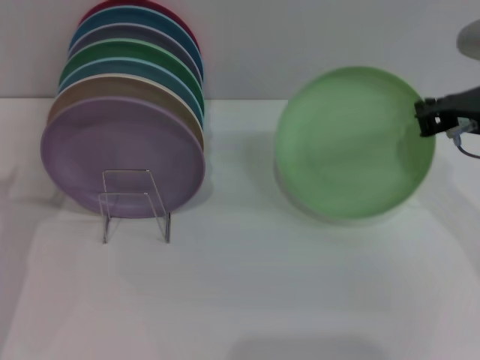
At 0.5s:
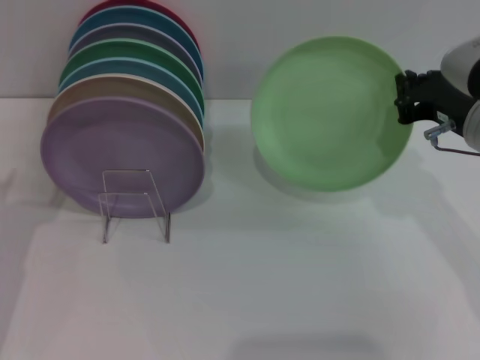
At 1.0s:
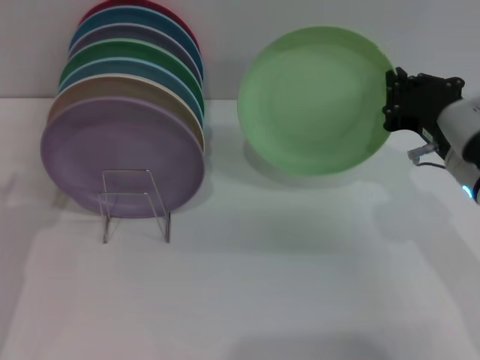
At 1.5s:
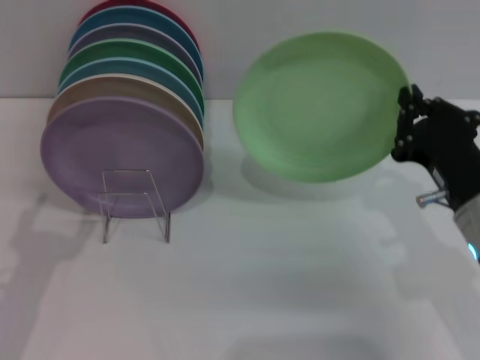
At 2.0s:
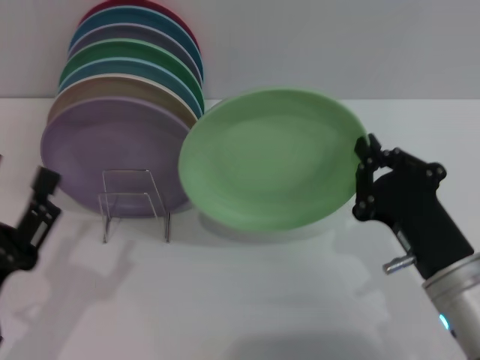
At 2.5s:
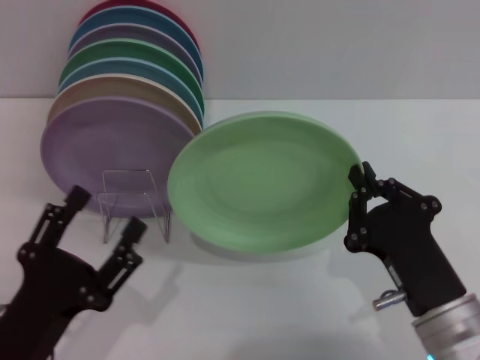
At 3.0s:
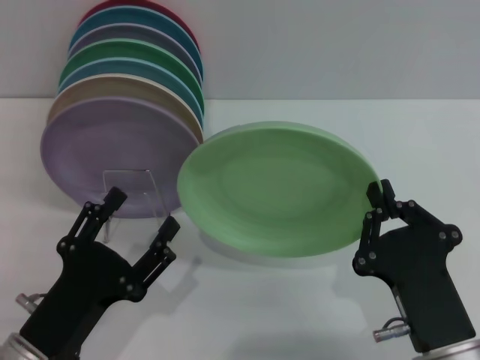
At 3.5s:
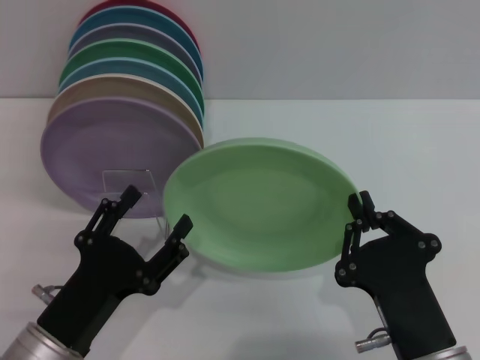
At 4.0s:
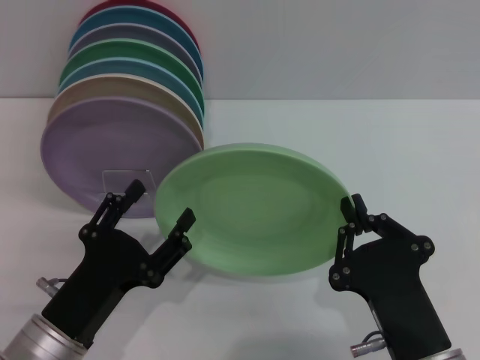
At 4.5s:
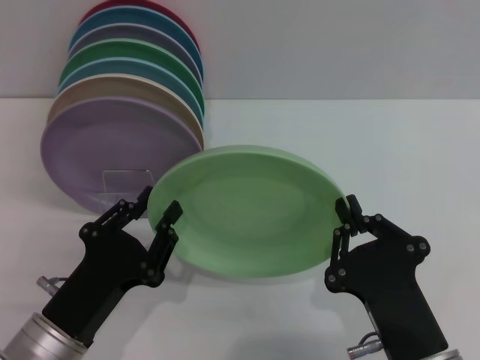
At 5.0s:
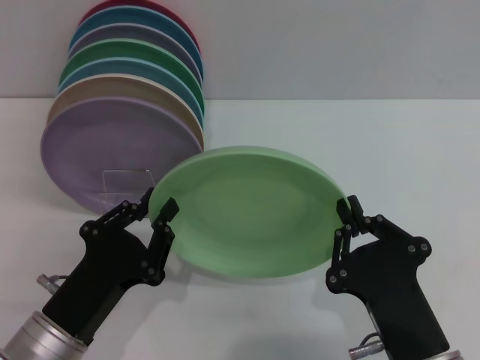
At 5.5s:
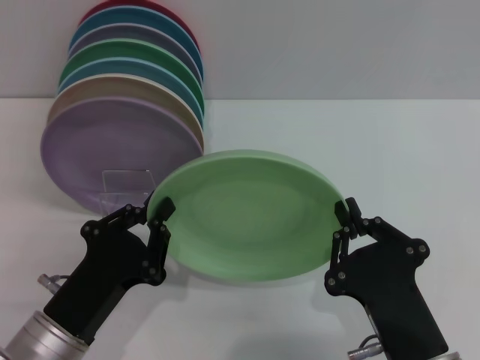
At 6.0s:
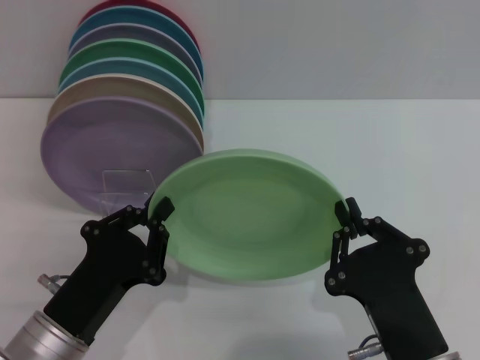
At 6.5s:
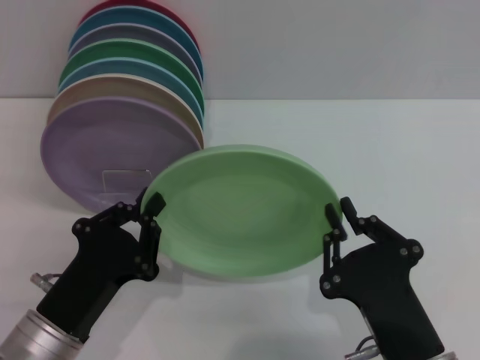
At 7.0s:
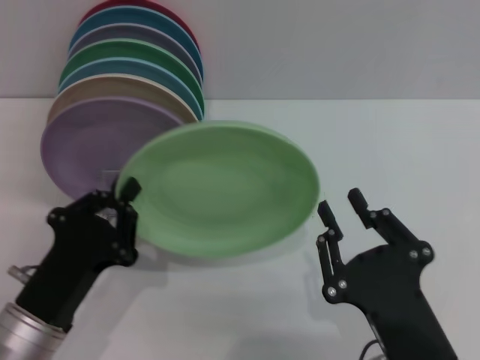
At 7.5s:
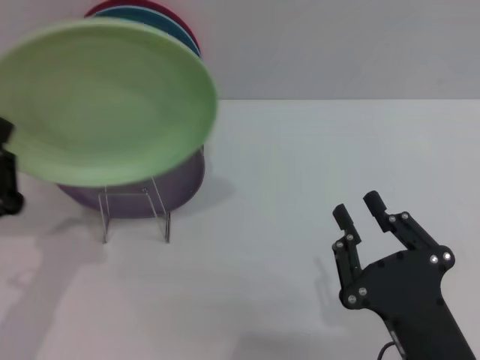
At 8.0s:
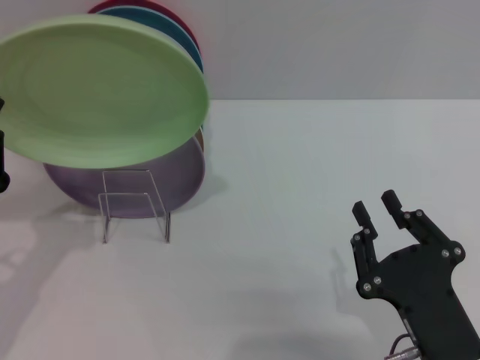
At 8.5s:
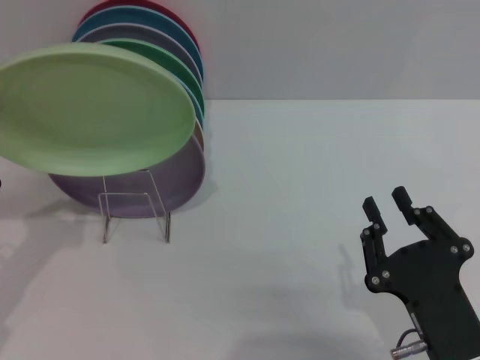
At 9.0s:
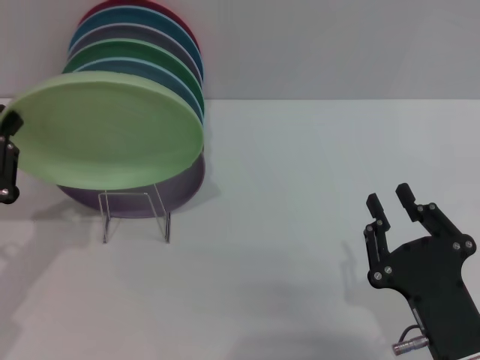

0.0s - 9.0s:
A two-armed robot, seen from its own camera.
Task of the whole recording: Grip the plate with one hand, pass it to the other, then set it on the shelf.
Step, 1.0s - 7.0s: Pass the plate from the right gripper to the left gripper.
0.0s - 2.0s: The right gripper shifts approximately 20 cm backward, downward and to the left. The left gripper moves backward, approximately 10 cm.
2.0s - 4.5s: The right gripper goes some 10 cm backward and to the left. The left gripper heads to the right, covering about 5 cm, and closes.
4.5s - 7.0s: The left gripper closes. Meanwhile the right gripper opens.
7.0s - 9.0s: The left gripper goes about 10 cm to the left.

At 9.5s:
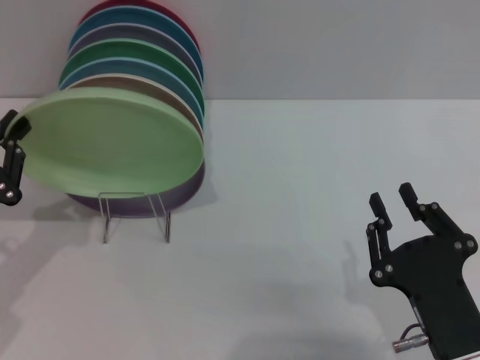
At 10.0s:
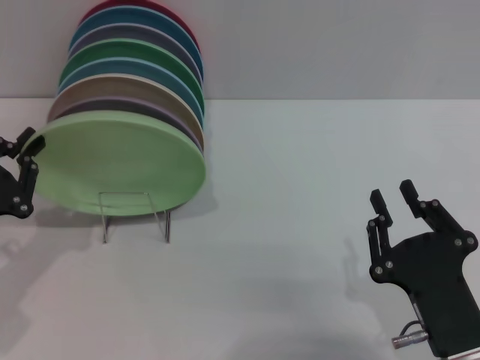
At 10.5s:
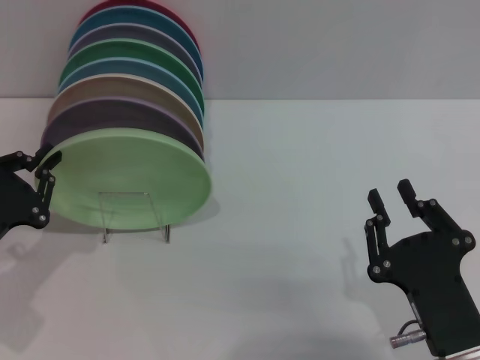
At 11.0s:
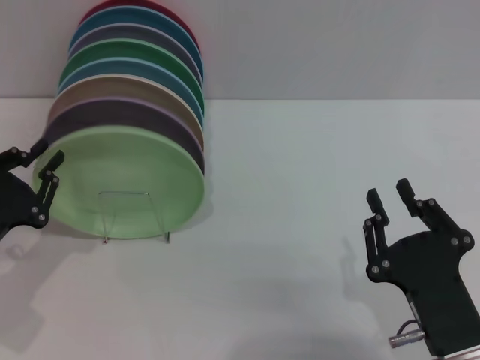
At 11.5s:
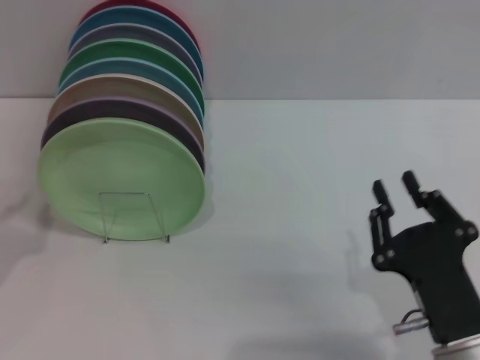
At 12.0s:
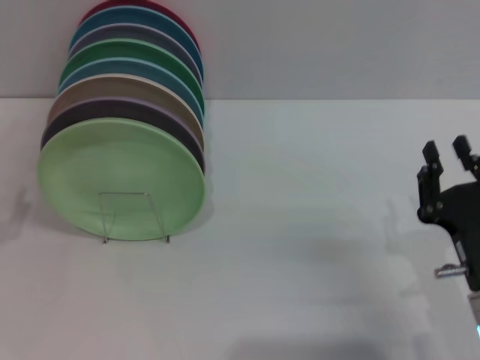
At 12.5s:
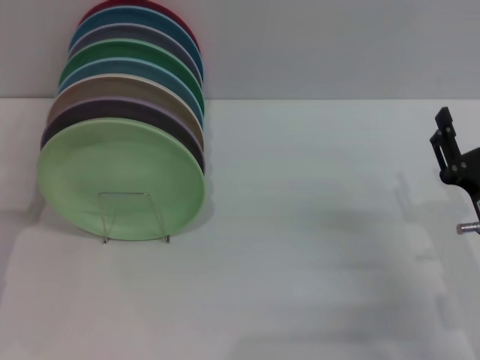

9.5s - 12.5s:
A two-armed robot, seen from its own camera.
Task of the whole recording: Grip the plate with one hand, pass it to the other, then set it on the shelf.
9.5s - 11.0s: The grippers stay close to where they were, moving slightly.
11.0s - 12.5s: The left gripper opens up. Meanwhile the right gripper moves forward and to the right, approximately 10 cm, and opens its fingers.
